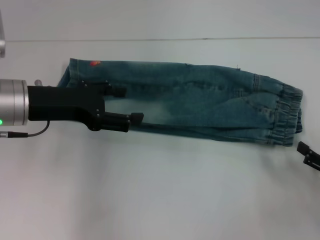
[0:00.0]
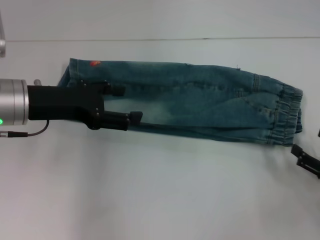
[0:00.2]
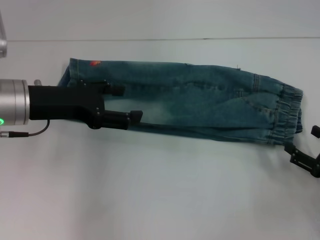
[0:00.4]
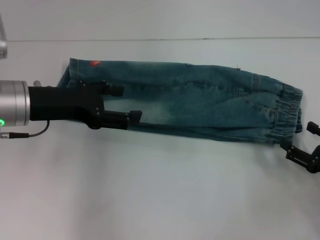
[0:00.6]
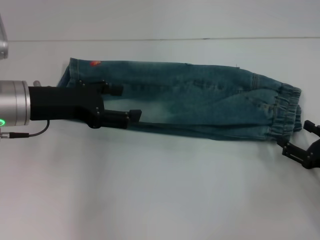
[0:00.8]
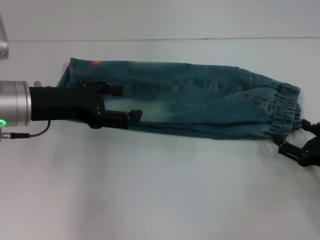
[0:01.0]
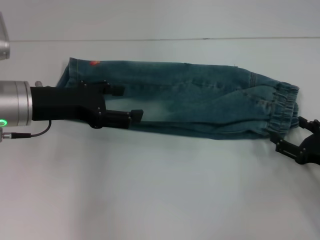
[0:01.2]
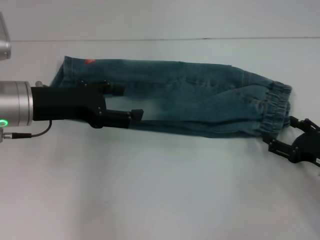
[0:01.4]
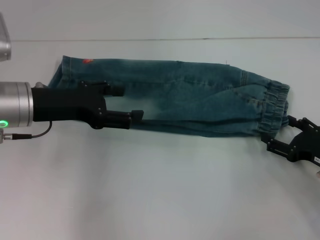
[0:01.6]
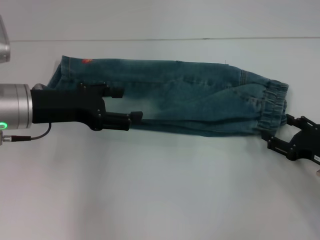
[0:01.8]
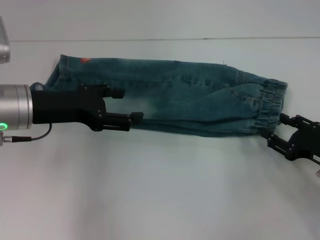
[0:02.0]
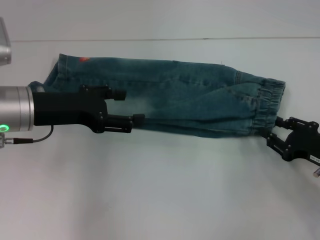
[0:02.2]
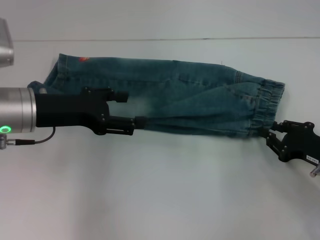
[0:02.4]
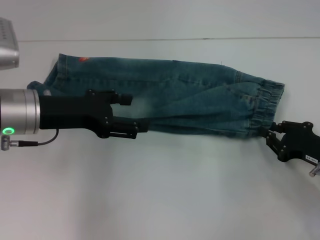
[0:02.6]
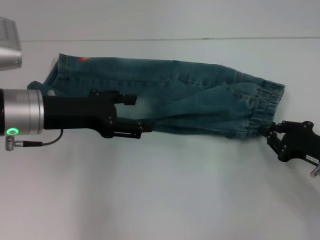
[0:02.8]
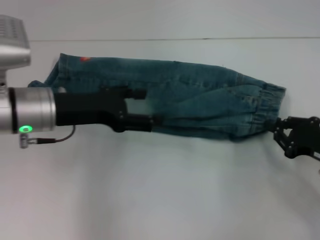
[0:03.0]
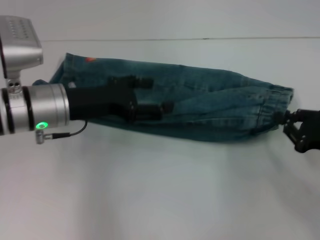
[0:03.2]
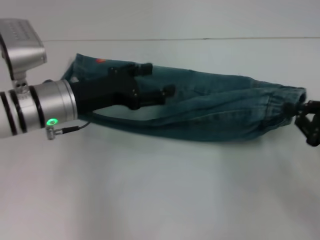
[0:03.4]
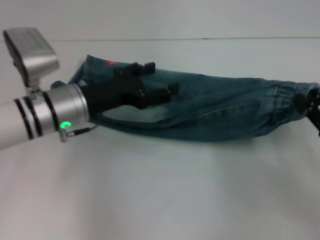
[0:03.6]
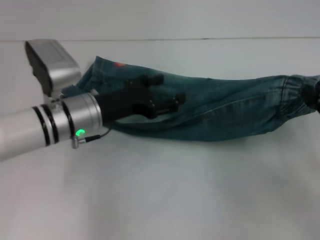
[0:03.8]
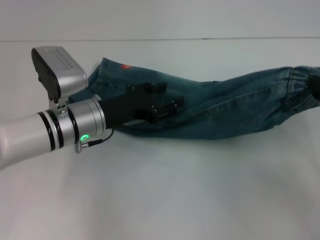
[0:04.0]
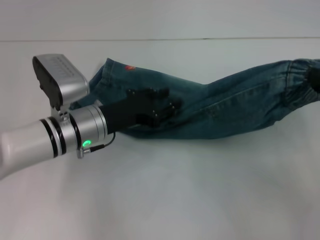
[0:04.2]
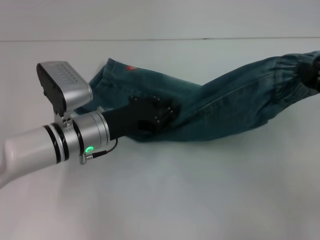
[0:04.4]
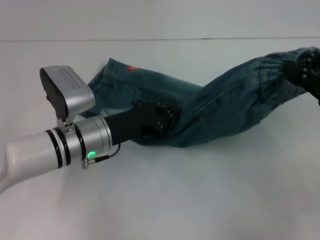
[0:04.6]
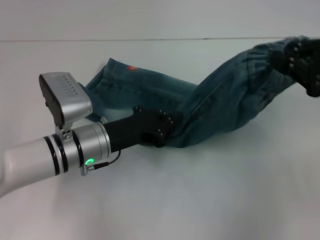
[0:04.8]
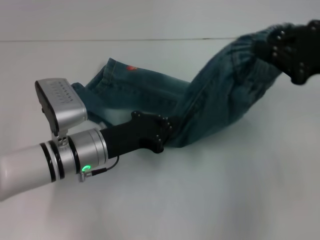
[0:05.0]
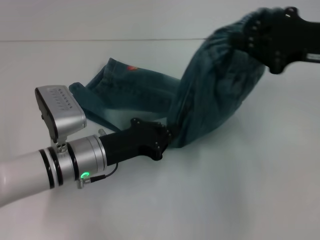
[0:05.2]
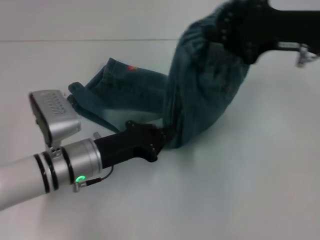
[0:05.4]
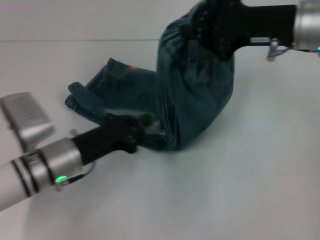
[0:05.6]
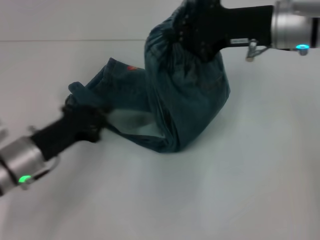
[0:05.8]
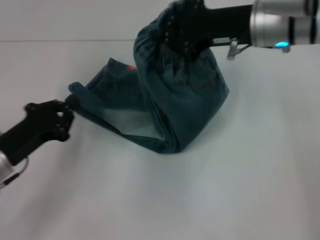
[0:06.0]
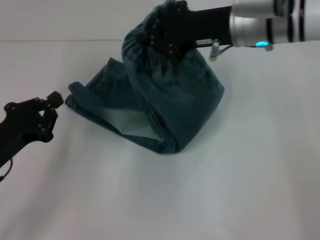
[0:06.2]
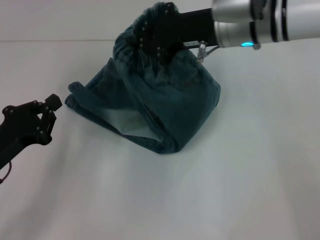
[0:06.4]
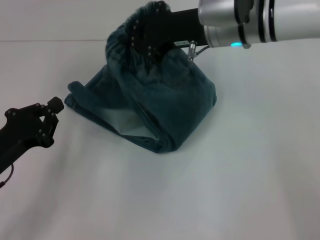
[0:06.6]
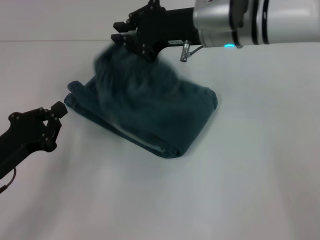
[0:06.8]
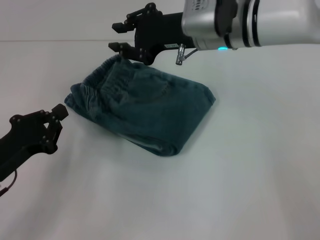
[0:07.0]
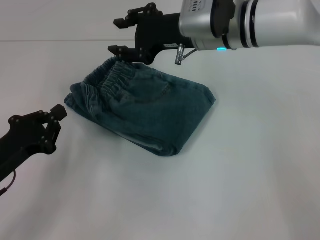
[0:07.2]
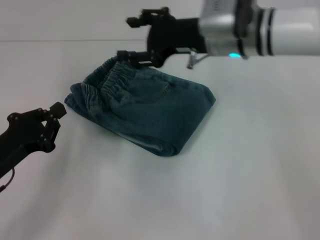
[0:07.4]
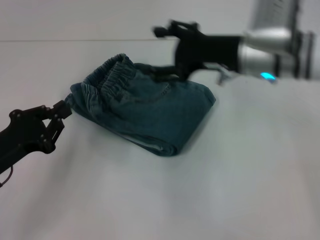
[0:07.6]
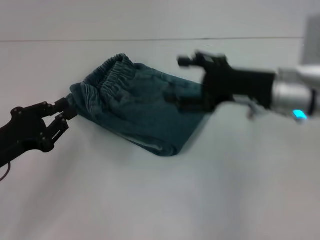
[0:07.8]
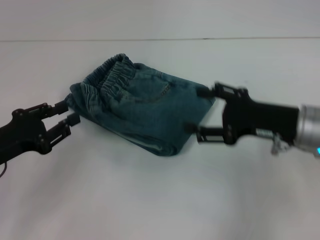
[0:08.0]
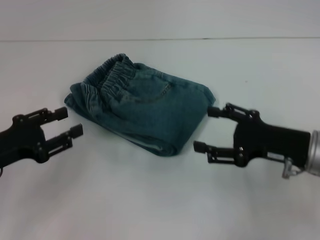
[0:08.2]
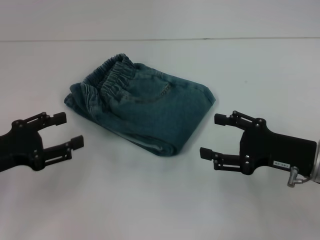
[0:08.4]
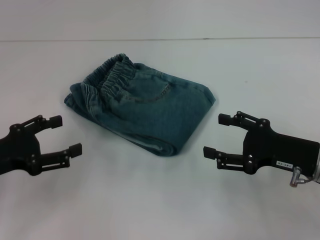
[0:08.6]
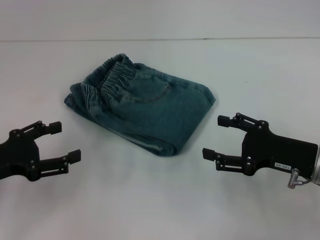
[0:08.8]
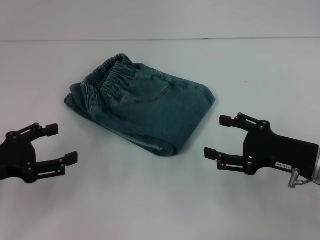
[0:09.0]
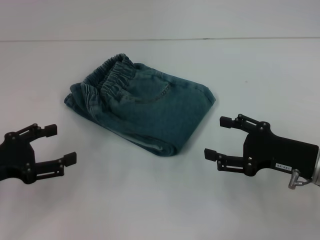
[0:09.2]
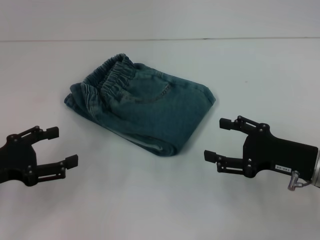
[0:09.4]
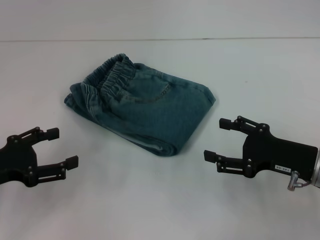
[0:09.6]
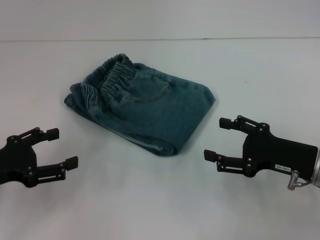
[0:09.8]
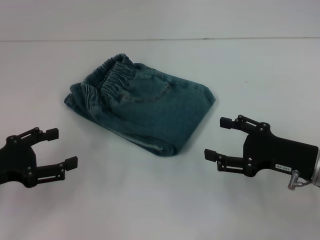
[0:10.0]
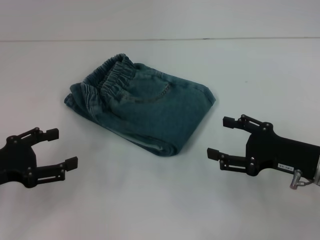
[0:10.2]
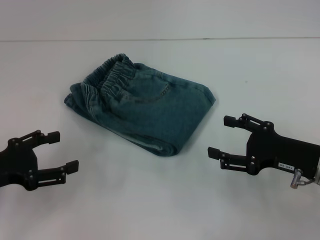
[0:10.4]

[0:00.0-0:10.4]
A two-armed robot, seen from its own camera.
Step, 0:00.0 to 0:02.8: Grab the waistband with your right hand.
Step, 0:03.0 to 0:05.4: Press the middle of the pants with your left hand.
Step, 0:05.6 to 0:07.0: Fold to the left with your right hand.
0:00.0 to 0:01.4: The right gripper heads forward, covering about 5 cm.
0:01.4 to 0:03.0: The right gripper closes its fingers.
0:03.0 to 0:04.4: The right gripper travels upward by roughly 15 cm. The left gripper shifts about 10 cm downward and to the right, and closes up.
0:04.4 to 0:06.0: The right gripper moves to the left and forward, about 20 cm. The left gripper moves to the left and backward, some 15 cm, and closes up.
0:06.0 to 0:07.4: The right gripper moves roughly 5 cm, and opens.
0:07.4 to 0:09.0: The right gripper travels backward, to the right and downward by about 25 cm. Meanwhile the left gripper opens.
0:09.0 to 0:10.4: The two grippers keep their place.
